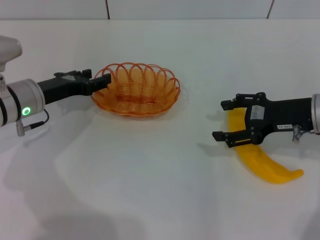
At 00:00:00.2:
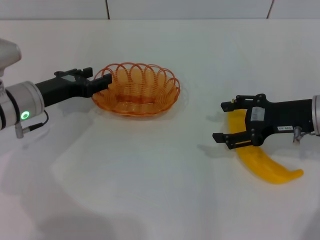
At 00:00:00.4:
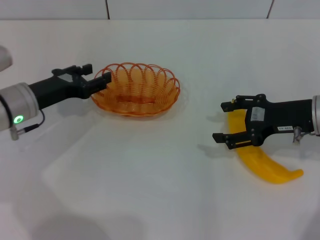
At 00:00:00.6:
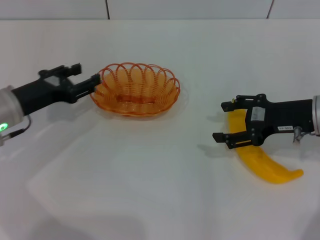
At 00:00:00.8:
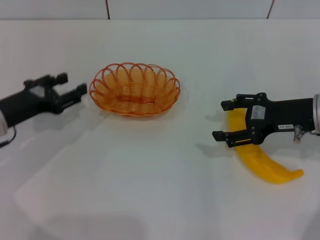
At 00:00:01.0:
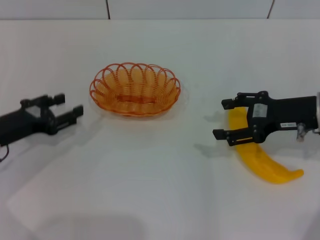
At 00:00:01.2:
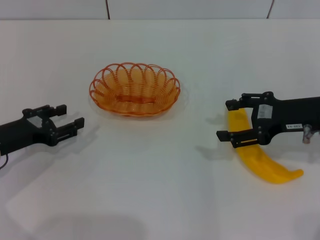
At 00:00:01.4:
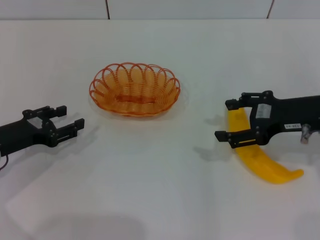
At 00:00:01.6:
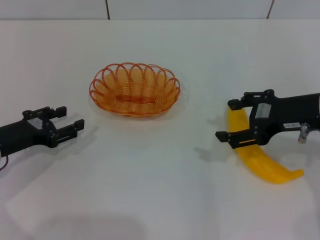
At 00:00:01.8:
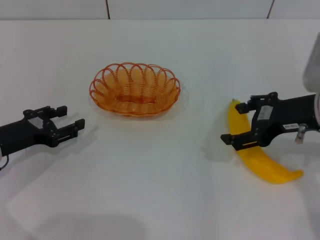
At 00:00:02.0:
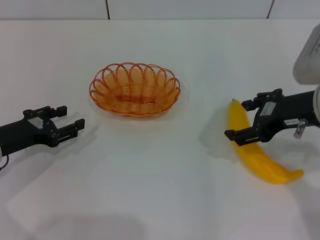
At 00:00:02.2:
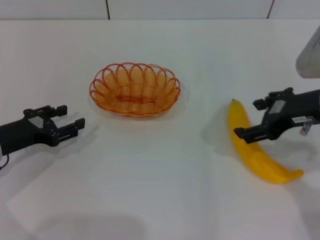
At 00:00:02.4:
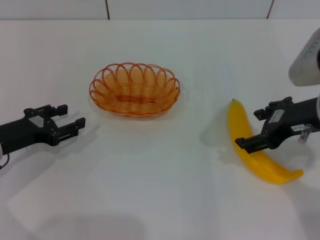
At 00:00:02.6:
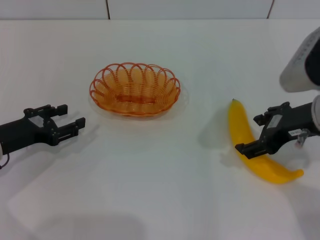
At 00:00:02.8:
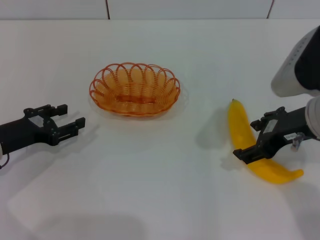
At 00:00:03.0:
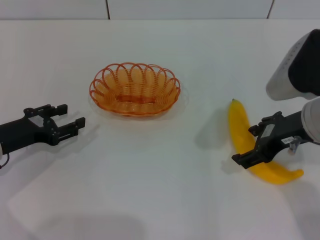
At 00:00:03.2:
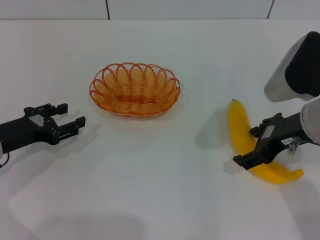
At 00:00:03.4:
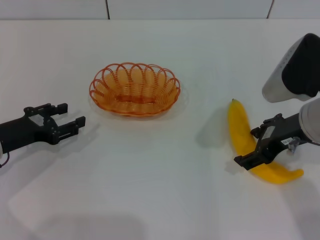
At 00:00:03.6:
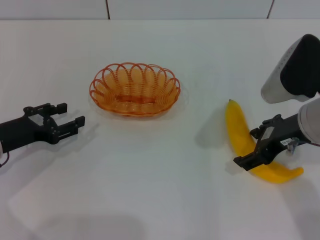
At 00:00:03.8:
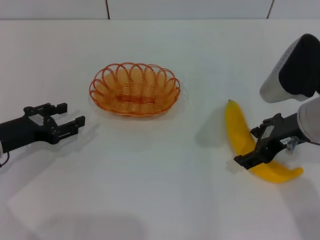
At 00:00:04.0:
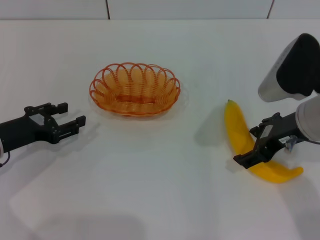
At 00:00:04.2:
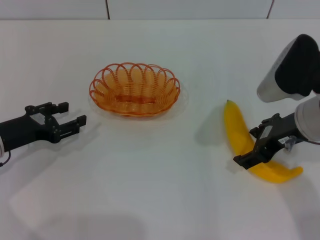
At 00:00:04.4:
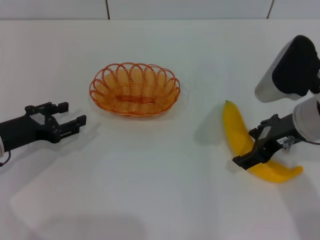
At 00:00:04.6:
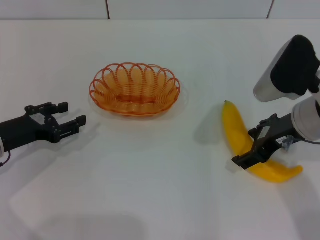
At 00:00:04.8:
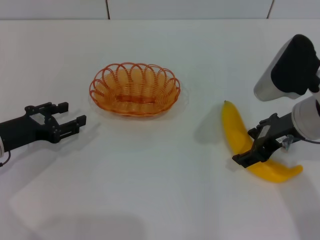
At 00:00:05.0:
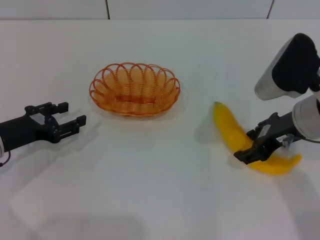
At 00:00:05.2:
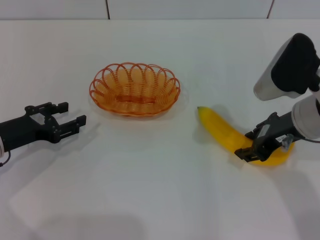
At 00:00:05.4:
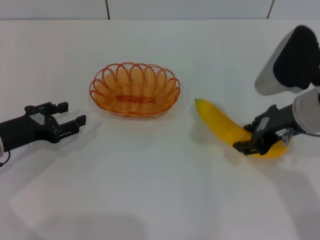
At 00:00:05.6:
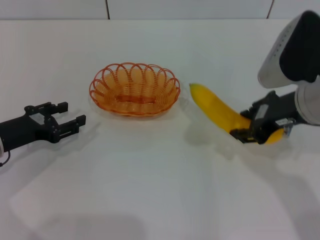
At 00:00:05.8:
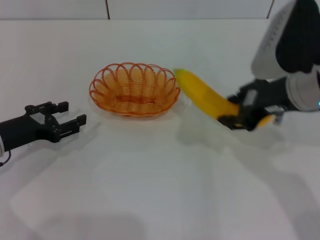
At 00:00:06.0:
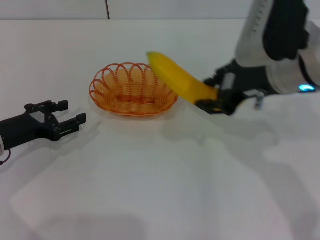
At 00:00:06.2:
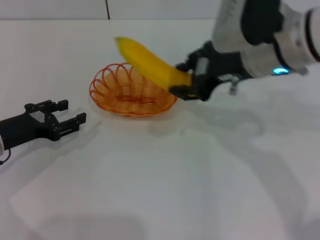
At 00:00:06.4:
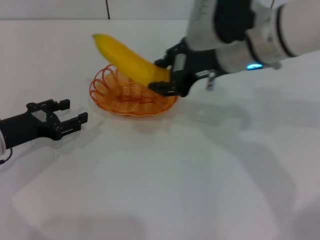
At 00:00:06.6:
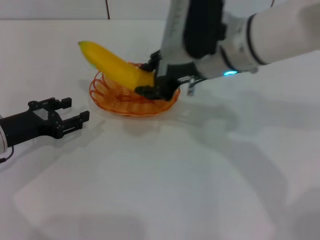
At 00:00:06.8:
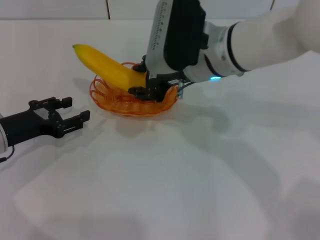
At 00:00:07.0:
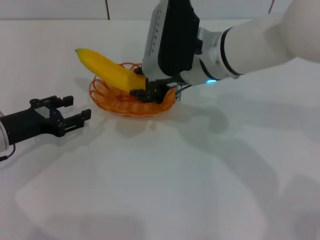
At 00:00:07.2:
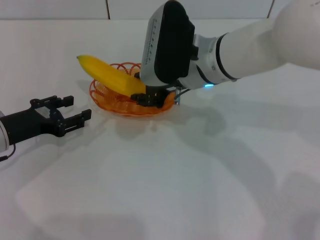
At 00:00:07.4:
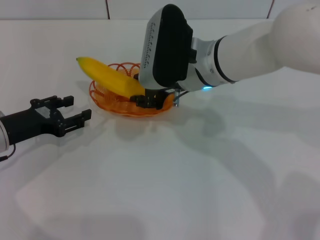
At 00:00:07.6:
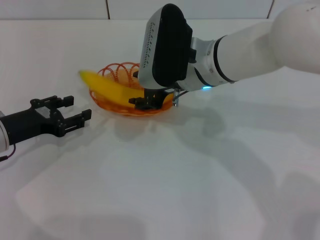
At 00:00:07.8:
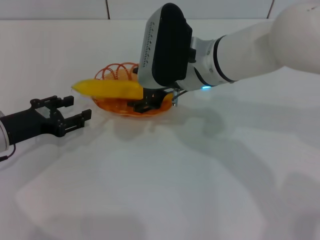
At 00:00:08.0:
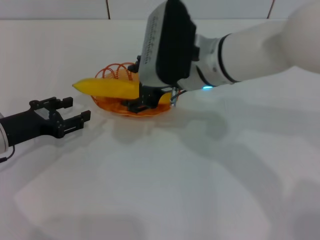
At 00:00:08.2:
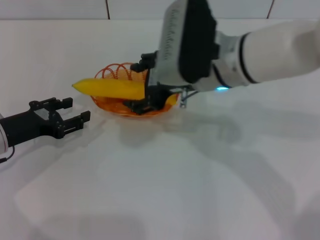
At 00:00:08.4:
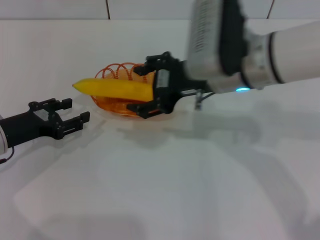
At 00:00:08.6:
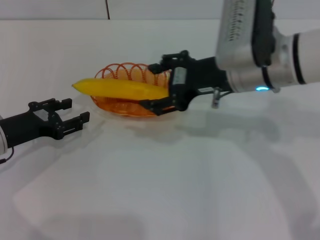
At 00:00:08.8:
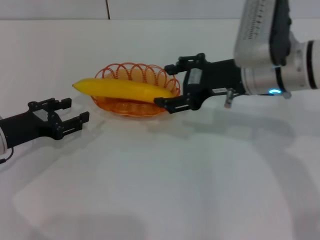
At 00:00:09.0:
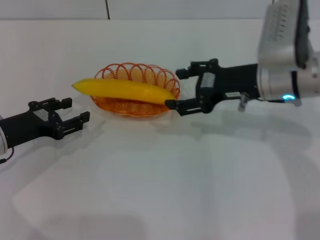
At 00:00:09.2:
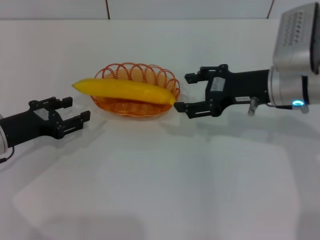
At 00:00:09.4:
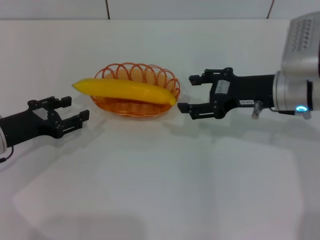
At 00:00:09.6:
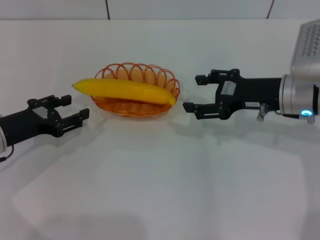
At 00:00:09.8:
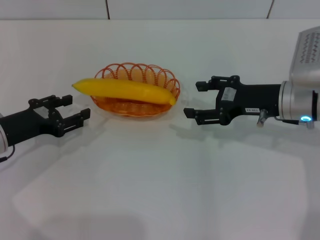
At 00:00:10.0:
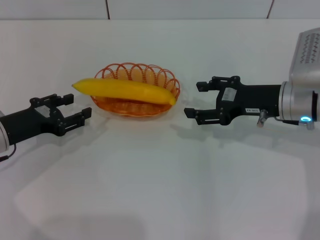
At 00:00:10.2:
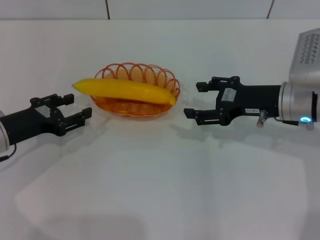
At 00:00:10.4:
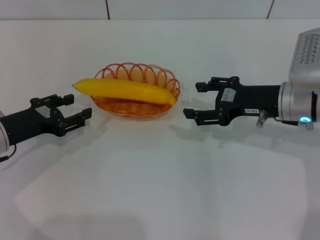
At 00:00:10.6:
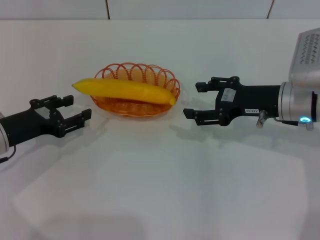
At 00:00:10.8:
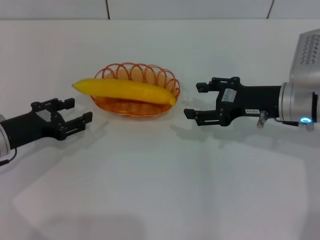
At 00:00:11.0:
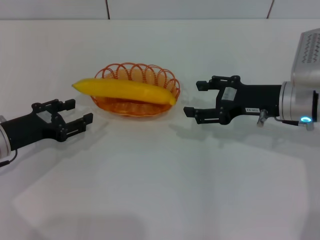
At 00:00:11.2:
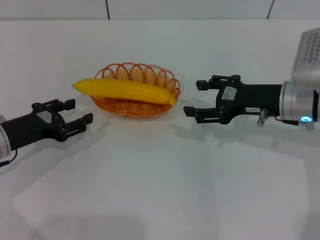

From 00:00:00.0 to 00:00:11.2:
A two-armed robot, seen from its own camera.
Step, from 00:00:00.4 to 00:00:05.8: Pick up the banana with the right gripper.
Step, from 00:00:06.0 to 00:00:09.6: Place the banana into the basket with the right gripper.
From 00:00:00.0 to 00:00:01.6: The right gripper moves upward, approximately 5 cm; the left gripper is displaced backward and to the left by approximately 10 cm.
From 00:00:03.2 to 00:00:04.8: The grippers stay close to where they were, moving slightly.
From 00:00:04.8 to 00:00:06.4: The right gripper heads to the left, upward and forward, covering some 15 cm, and closes its fingers.
From 00:00:06.4 to 00:00:08.0: The right gripper ends up roughly 5 cm from where it was, and opens up.
From 00:00:08.0 to 00:00:09.6: The right gripper shifts about 15 cm to the right.
From 00:00:09.6 to 00:00:11.2: The two grippers keep their place.
